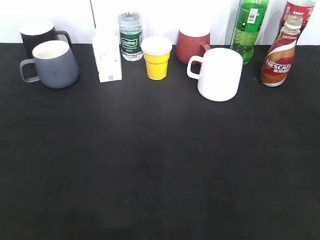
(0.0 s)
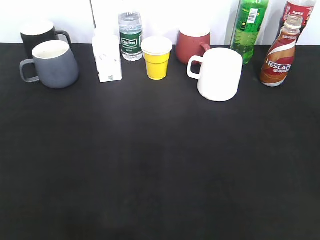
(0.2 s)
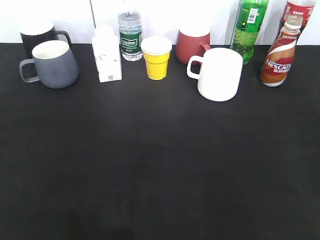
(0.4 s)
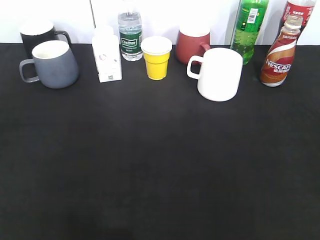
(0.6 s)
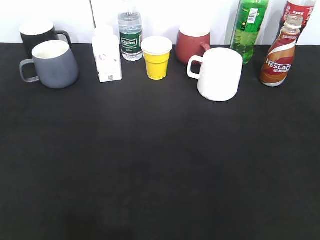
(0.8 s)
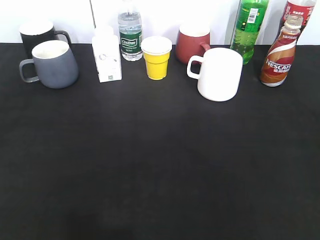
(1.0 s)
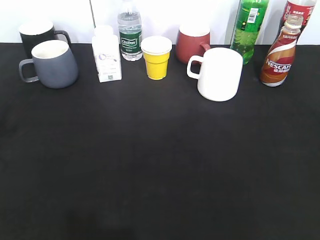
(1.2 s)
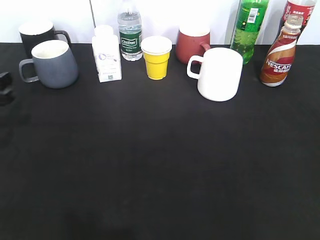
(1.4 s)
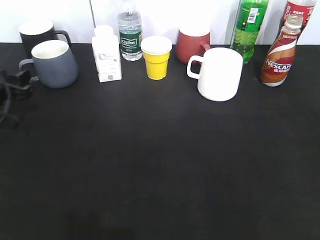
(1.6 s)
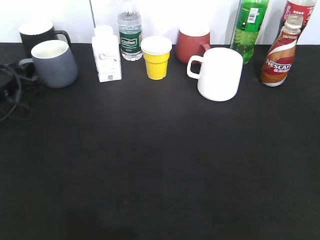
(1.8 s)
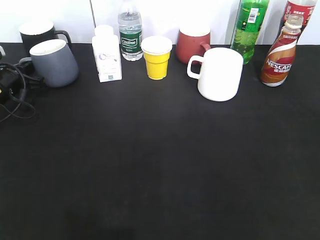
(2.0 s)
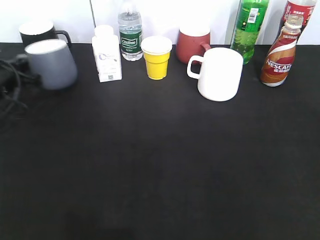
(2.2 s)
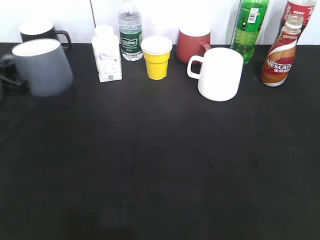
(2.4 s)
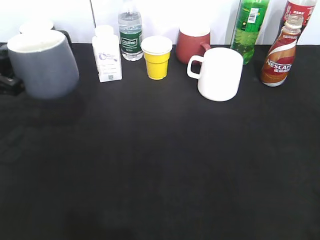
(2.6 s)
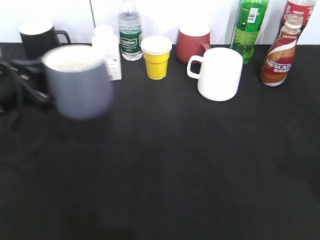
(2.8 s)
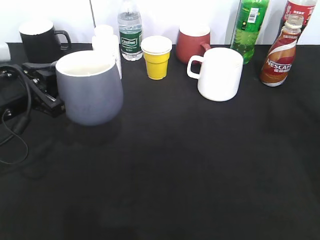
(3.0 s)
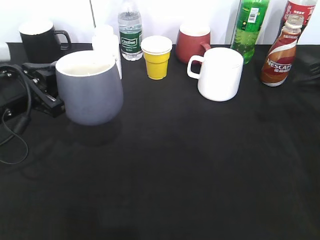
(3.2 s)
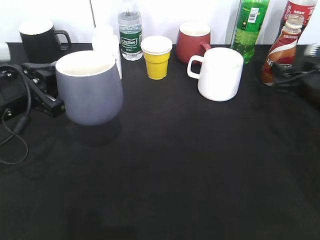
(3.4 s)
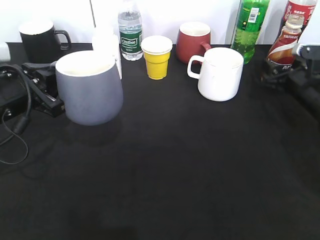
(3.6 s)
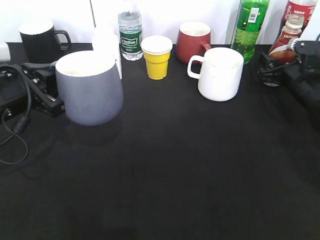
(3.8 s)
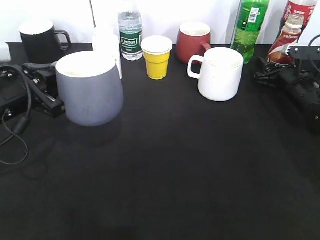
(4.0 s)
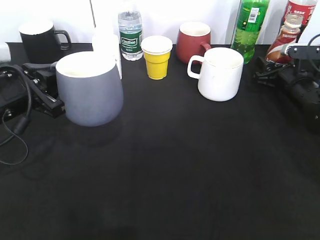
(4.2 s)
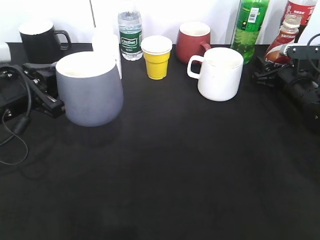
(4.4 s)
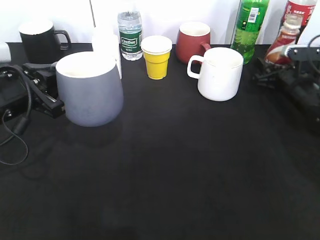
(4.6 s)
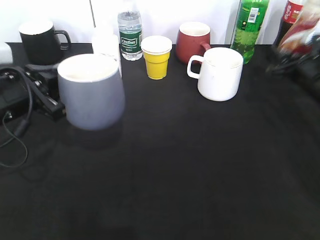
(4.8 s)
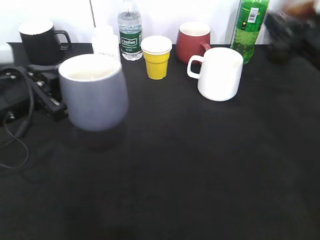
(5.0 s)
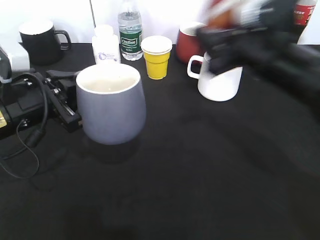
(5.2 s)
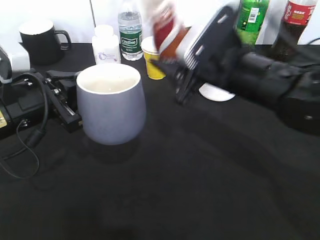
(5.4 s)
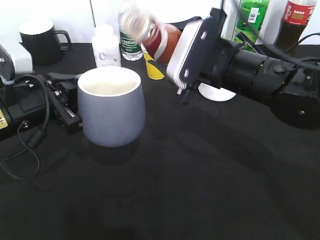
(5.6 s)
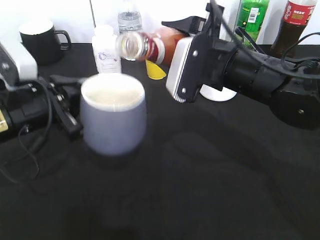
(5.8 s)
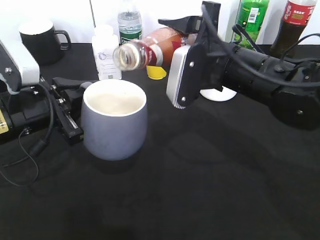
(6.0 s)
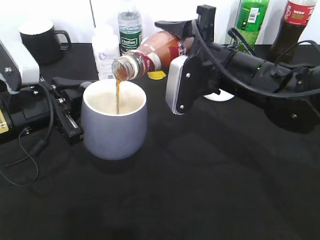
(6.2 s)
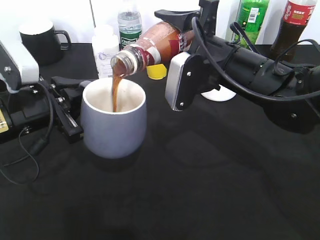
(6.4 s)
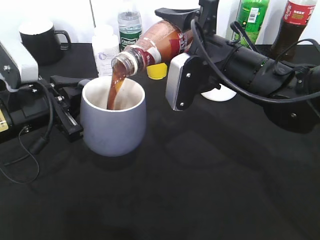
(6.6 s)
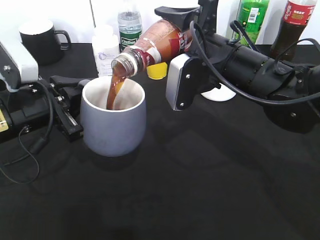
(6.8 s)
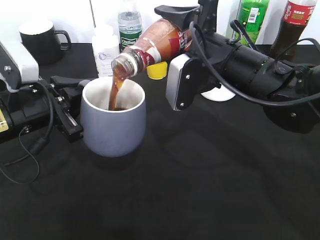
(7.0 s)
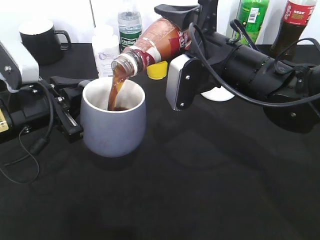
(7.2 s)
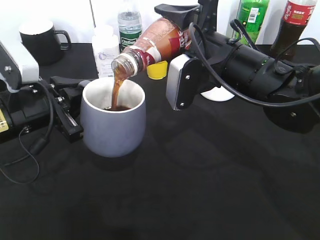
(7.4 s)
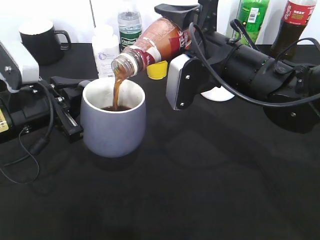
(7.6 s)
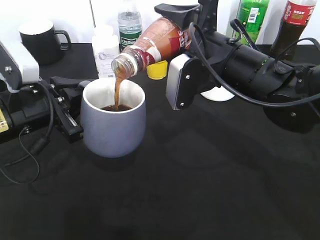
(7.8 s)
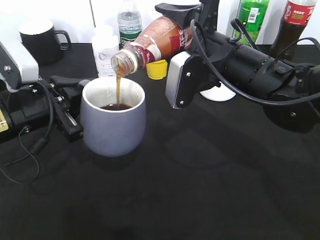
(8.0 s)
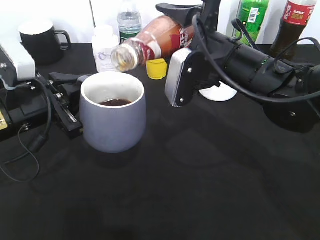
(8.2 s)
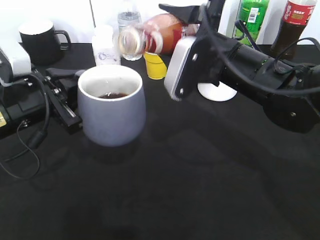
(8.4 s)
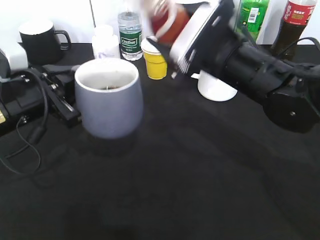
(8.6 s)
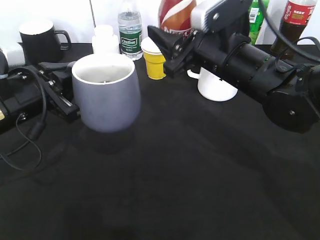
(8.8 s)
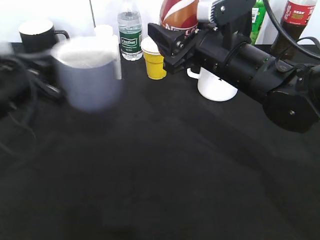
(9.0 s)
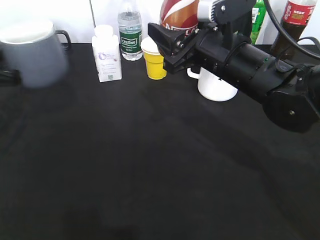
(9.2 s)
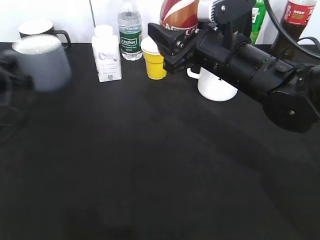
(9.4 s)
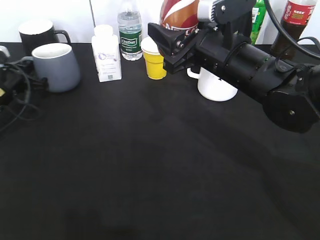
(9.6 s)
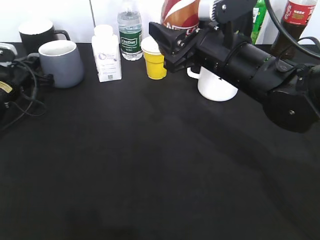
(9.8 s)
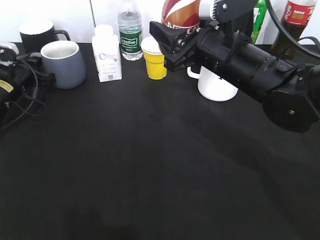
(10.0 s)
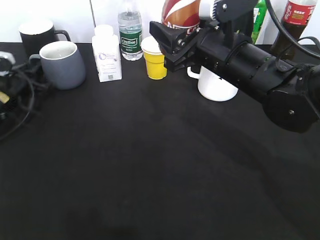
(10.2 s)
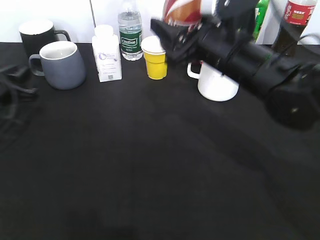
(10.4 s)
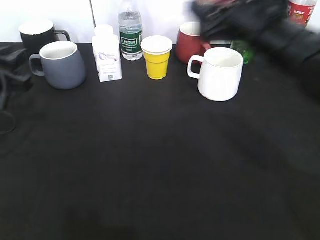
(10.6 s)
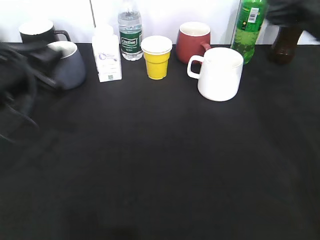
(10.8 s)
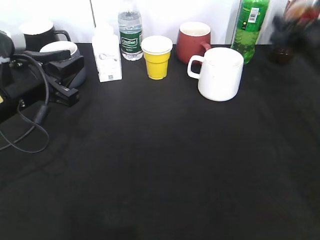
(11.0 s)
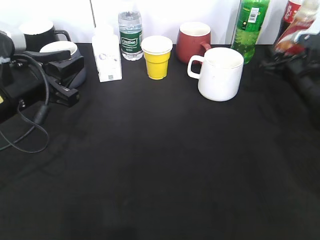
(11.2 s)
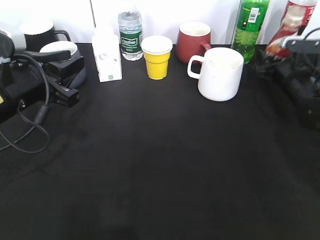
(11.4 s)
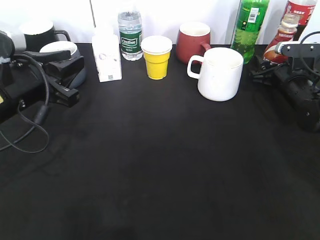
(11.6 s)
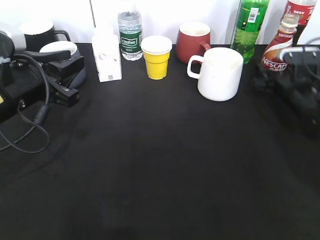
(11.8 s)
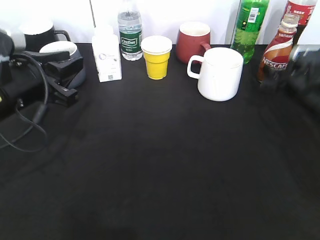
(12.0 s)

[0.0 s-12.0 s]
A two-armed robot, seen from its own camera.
Step, 0.0 to 2.0 s: Grasp the grey cup with left gripper.
Step, 2.2 to 2.8 s: Lift the grey cup with left gripper.
Step, 3.2 to 4.4 s: Grasp the bottle with coffee with right gripper.
Step, 4.8 to 8.4 s: Pour the coffee from bottle to cup with right gripper.
Step, 8.6 to 10.2 s: Place the grey cup on the table with left gripper.
0.0 to 1.6 s: The left gripper moves forward and downward, roughly 40 cm.
1.6 to 3.0 s: The right gripper shifts some 20 cm forward. The left gripper shifts approximately 15 cm to the right, backward and upward, and closes.
3.0 to 4.4 s: The right gripper is displaced forward and downward by about 25 cm, and closes its fingers.
4.4 to 6.0 s: The right gripper shifts roughly 25 cm to the left, upward and backward.
6.0 to 7.6 s: The grippers stay close to where they were, moving slightly.
9.0 to 10.4 s: The left gripper heads to the left, downward and forward, covering roughly 10 cm, and opens its fingers.
10.4 to 12.0 s: The left gripper goes some 15 cm to the right, upward and backward; the right gripper shifts roughly 20 cm to the right and downward, and opens its fingers.

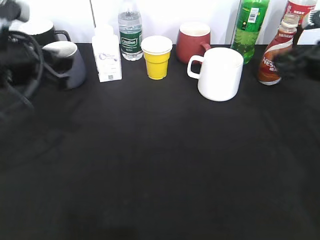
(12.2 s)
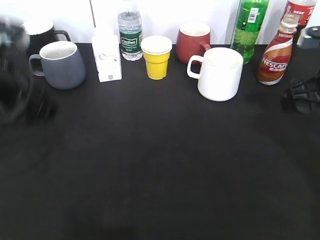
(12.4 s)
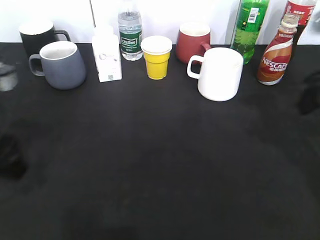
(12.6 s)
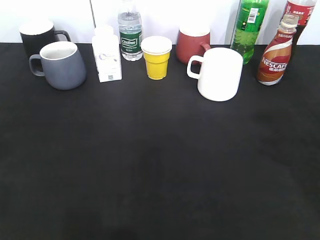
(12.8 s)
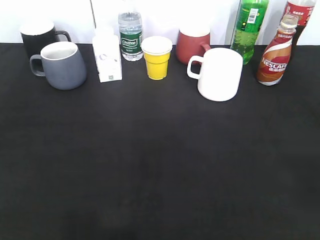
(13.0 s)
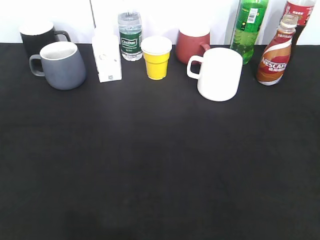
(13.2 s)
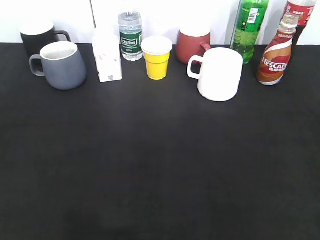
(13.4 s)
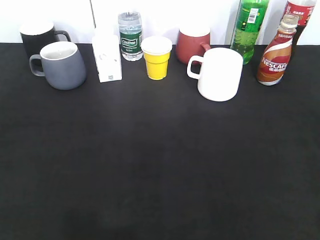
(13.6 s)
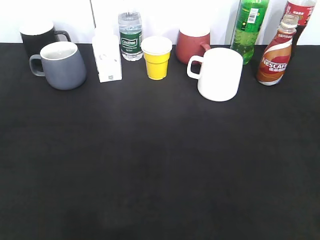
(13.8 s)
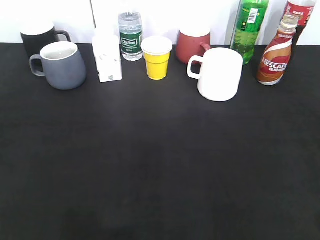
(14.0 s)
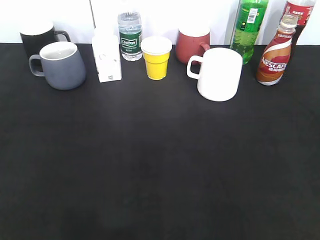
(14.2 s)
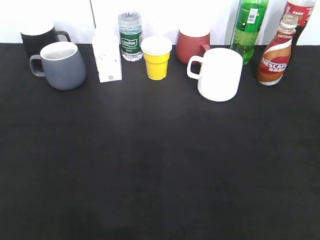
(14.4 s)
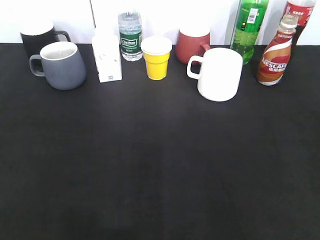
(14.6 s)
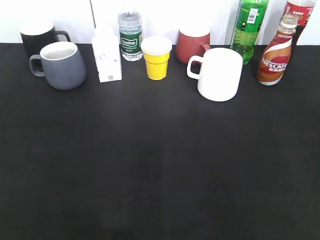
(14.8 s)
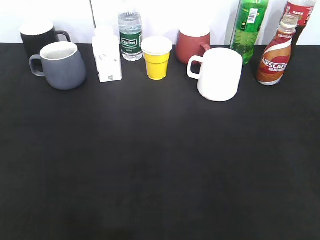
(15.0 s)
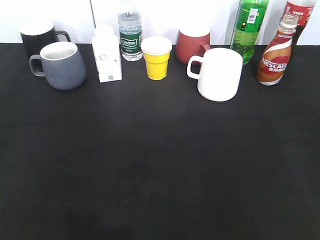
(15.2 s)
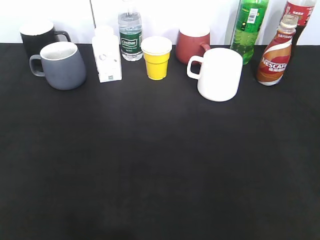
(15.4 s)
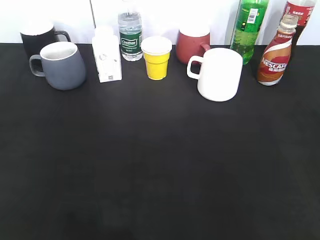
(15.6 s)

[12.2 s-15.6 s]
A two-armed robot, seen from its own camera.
12.2 to 13.8 s: The right gripper goes about 30 cm backward; the left gripper heads backward and to the left, covering approximately 25 cm.
